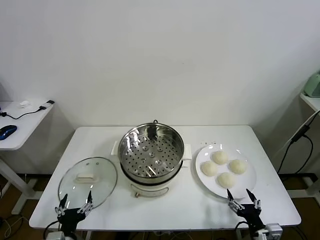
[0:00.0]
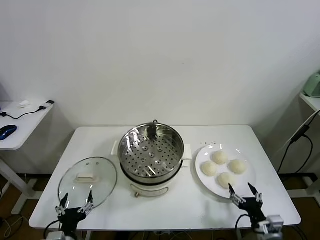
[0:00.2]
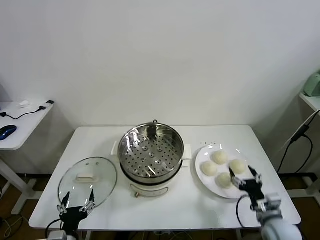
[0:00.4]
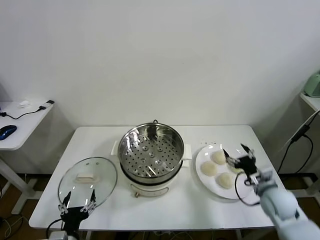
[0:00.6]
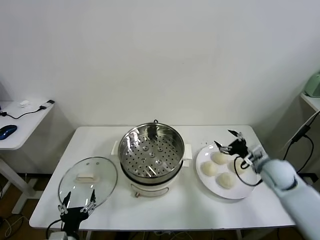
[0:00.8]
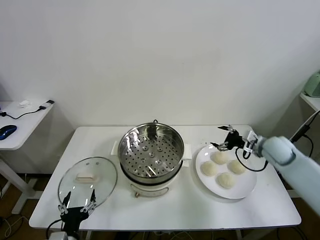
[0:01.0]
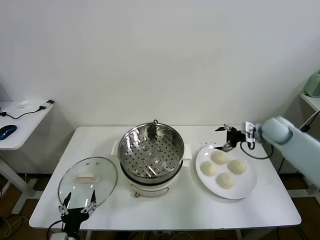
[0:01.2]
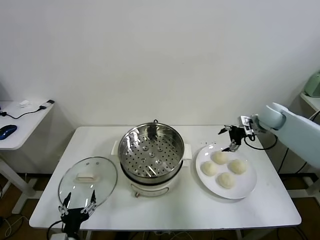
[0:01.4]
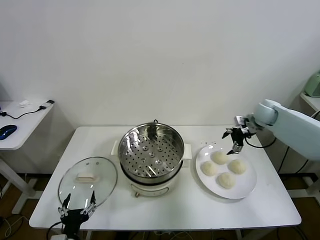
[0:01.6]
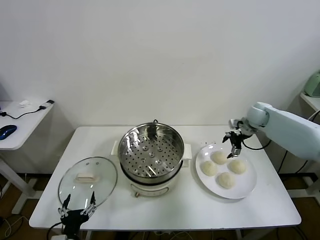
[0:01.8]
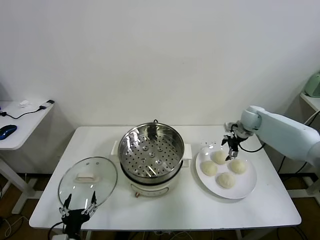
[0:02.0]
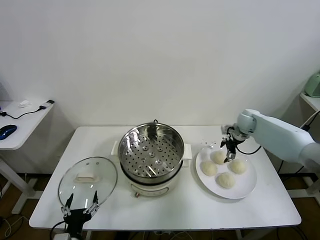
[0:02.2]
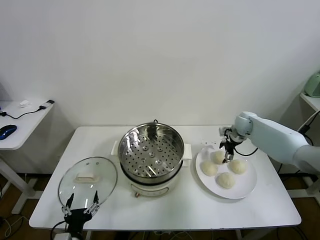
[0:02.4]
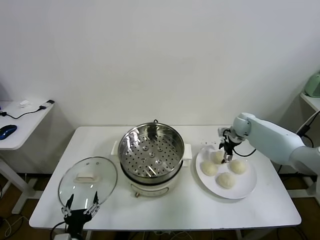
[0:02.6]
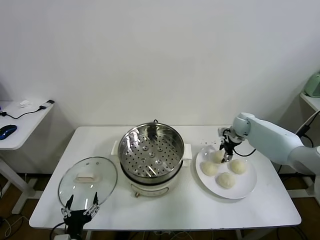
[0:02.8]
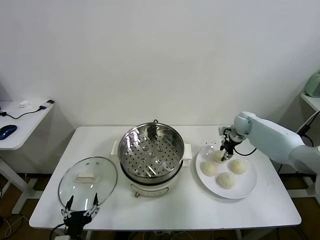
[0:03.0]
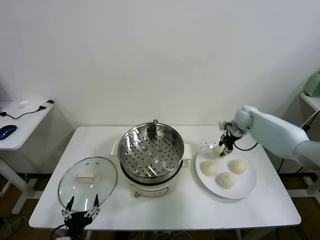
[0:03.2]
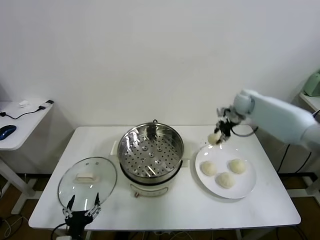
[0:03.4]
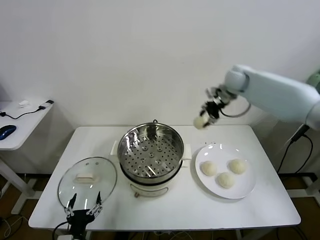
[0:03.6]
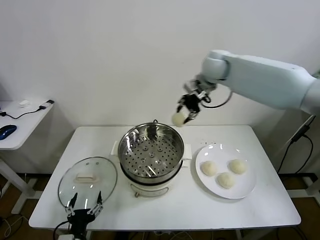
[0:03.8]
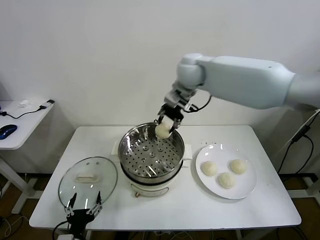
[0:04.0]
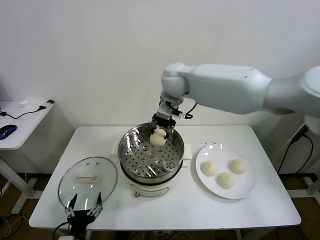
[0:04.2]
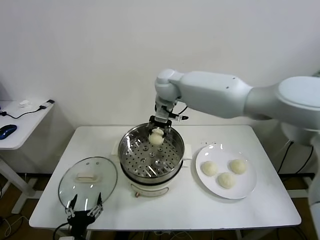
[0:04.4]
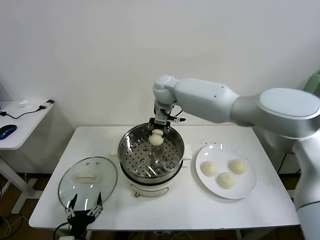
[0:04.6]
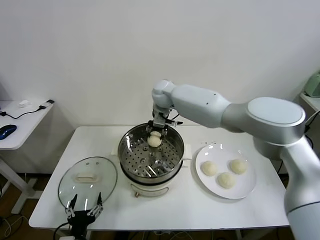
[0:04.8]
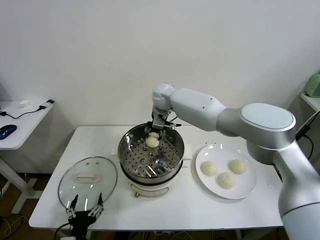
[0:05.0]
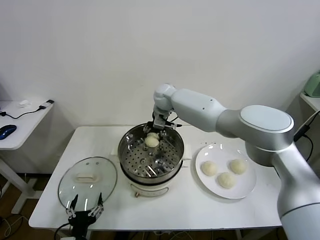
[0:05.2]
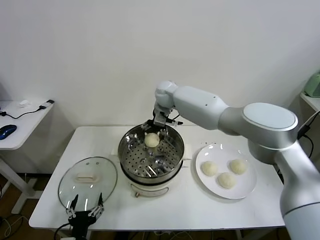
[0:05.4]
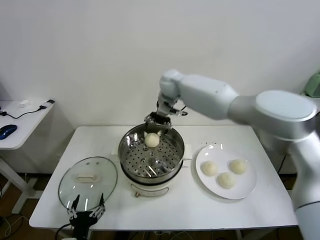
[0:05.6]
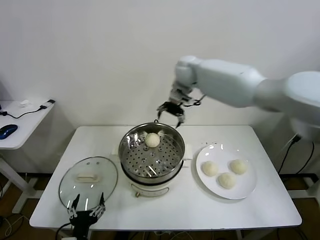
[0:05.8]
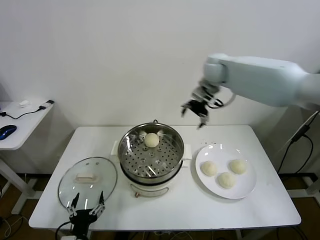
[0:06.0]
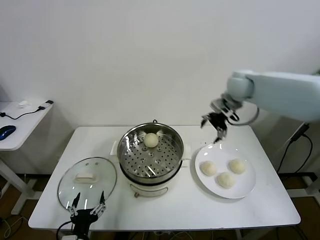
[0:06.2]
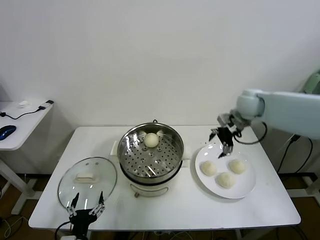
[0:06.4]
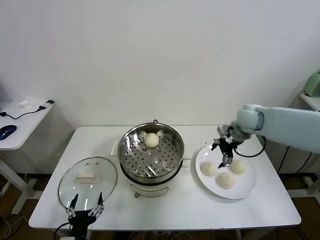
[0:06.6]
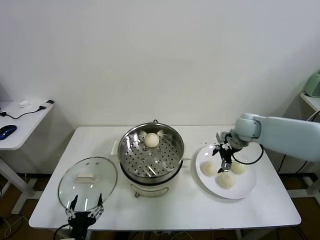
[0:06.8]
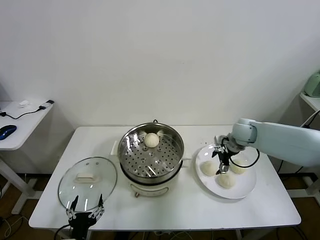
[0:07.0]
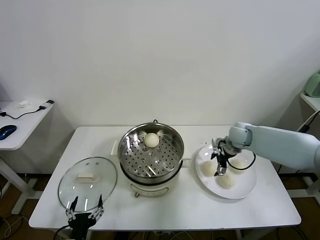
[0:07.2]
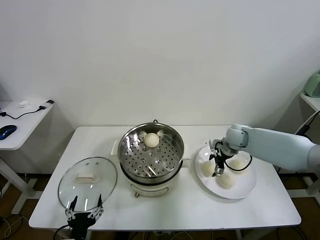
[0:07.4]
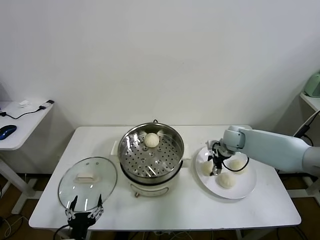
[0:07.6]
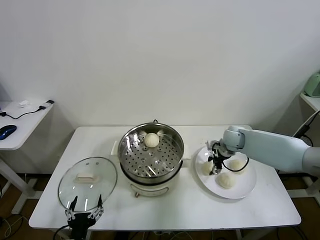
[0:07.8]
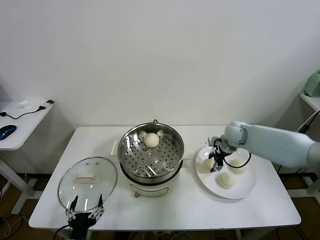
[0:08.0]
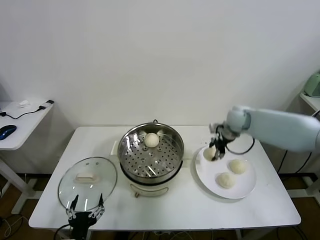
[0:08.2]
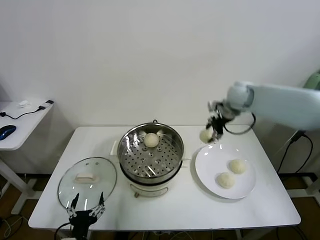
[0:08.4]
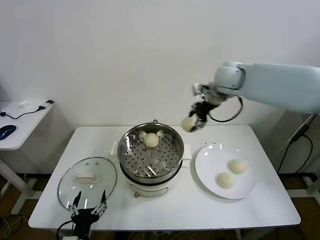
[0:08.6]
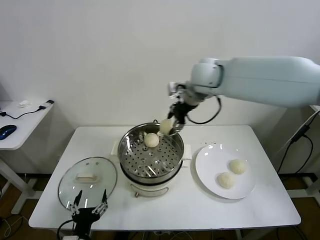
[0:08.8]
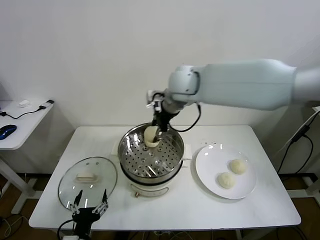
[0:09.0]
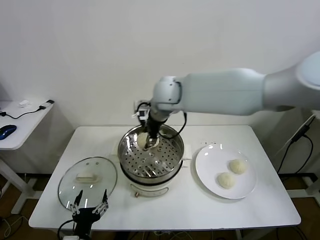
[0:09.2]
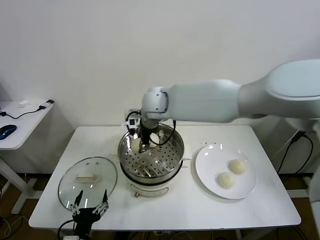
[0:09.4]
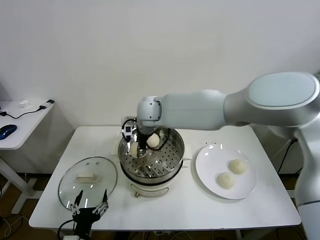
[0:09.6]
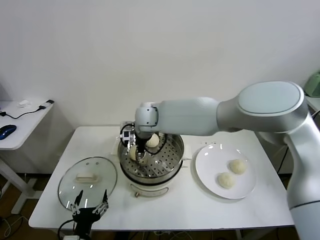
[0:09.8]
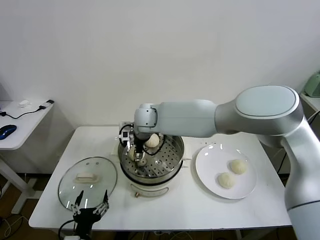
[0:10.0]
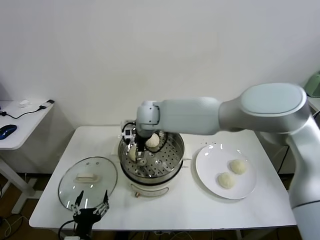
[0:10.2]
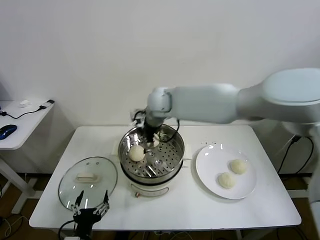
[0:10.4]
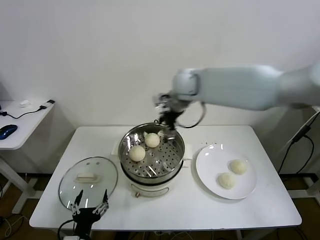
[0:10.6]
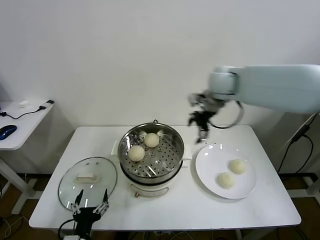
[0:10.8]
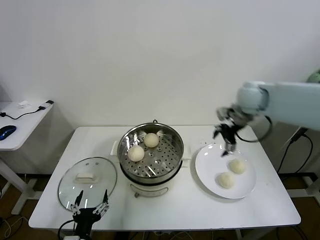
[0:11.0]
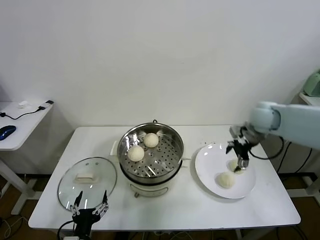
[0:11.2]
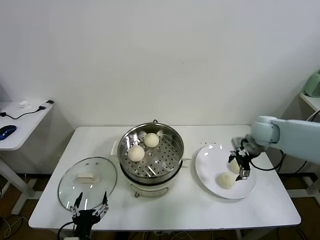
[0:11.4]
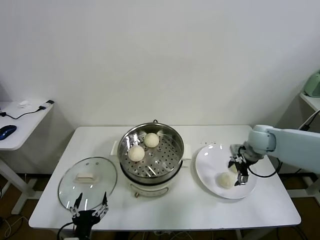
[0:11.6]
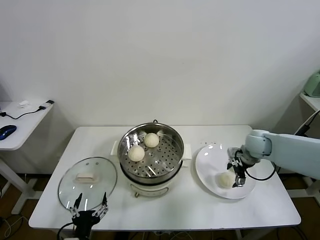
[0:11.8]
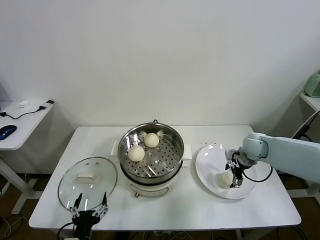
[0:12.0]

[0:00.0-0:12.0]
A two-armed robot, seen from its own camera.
Task of the whole recording: take steamed baozi put them in steamer.
Step, 0:00.0 to 0:03.0: Grasp the baozi in the plate with right gripper.
Step, 0:03.2 to 0:05.4: Place the baozi on the steamer with right gripper.
Step, 0:05.6 to 0:07.8: Grasp the baozi in the plate with right gripper.
Step, 0:08.0 to 0:10.2: Place the baozi on the steamer with right gripper.
0:01.6 to 0:03.0: The right gripper is displaced downward by about 5 cm, and closes its fingers.
0:03.0 to 0:04.4: The right gripper heads to the left and upward, covering about 40 cm.
0:04.4 to 0:06.0: The right gripper goes roughly 20 cm to the right, and opens its fingers.
0:06.0 to 0:07.6: The right gripper shifts approximately 25 cm downward, and closes.
0:07.6 to 0:09.0: The right gripper goes about 35 cm upward and to the left.
0:09.0 to 0:10.4: The right gripper opens up.
0:10.4 to 0:12.0: The right gripper shifts about 35 cm to the right and downward.

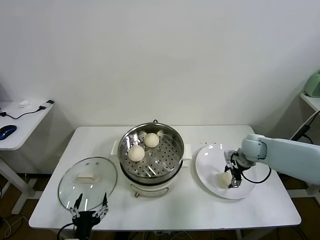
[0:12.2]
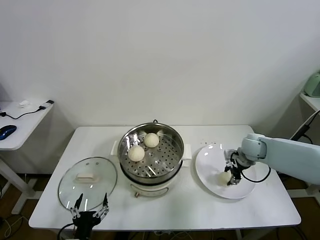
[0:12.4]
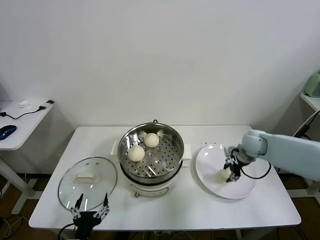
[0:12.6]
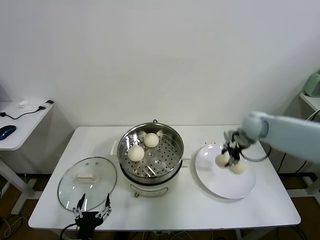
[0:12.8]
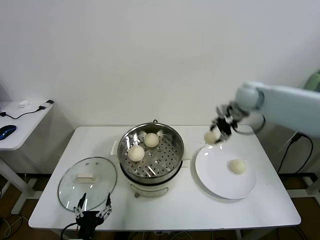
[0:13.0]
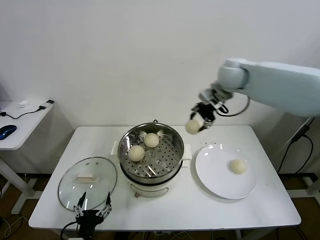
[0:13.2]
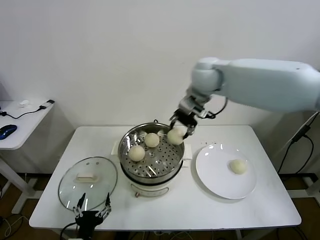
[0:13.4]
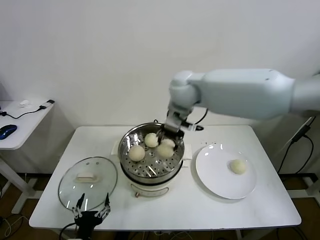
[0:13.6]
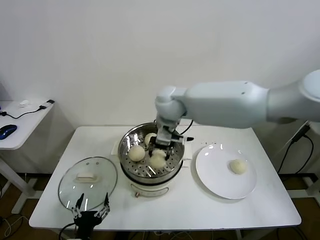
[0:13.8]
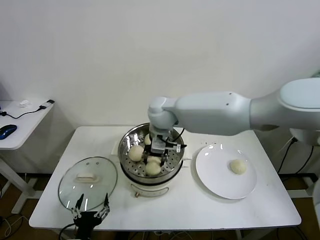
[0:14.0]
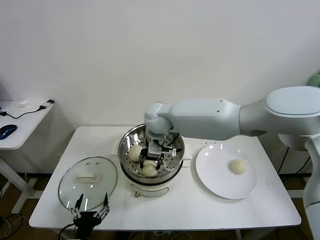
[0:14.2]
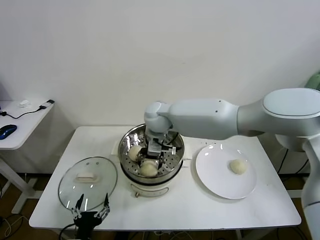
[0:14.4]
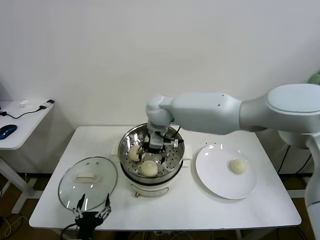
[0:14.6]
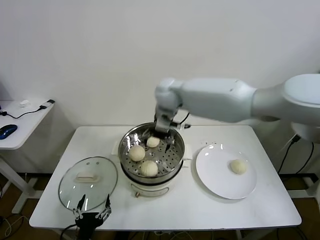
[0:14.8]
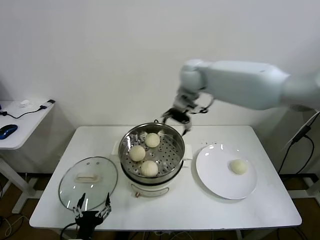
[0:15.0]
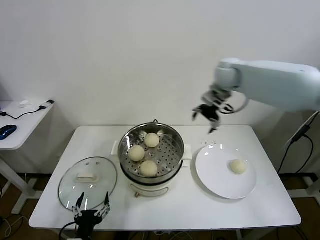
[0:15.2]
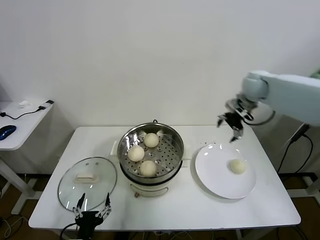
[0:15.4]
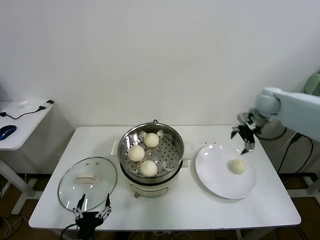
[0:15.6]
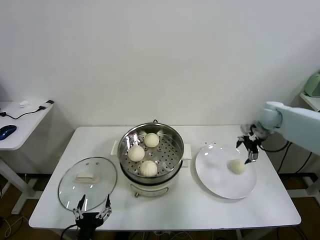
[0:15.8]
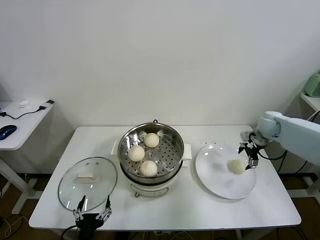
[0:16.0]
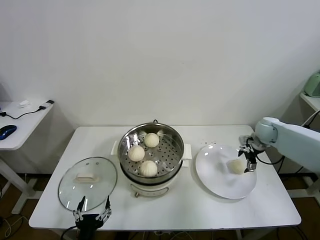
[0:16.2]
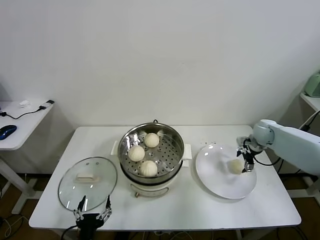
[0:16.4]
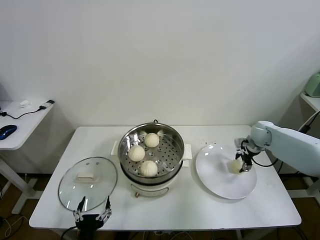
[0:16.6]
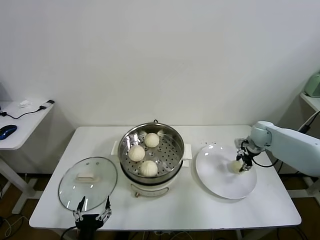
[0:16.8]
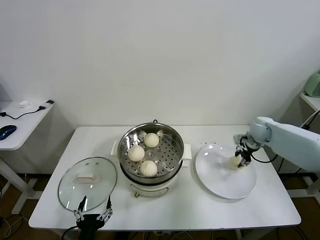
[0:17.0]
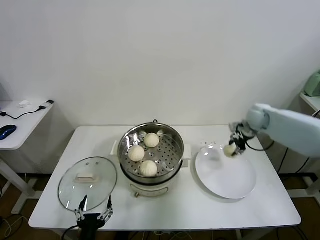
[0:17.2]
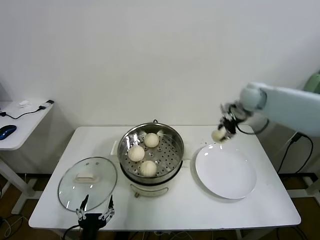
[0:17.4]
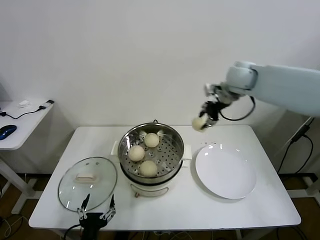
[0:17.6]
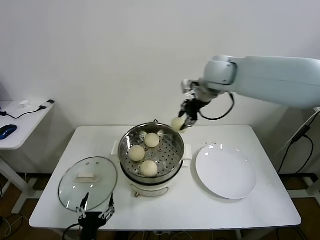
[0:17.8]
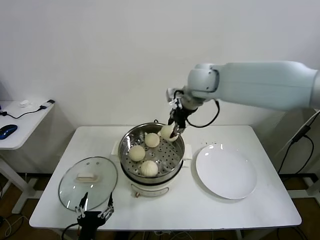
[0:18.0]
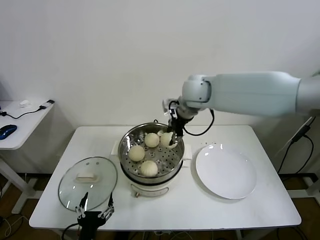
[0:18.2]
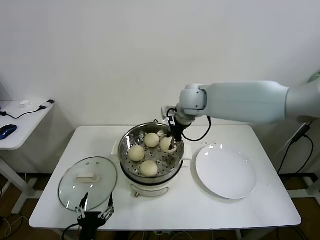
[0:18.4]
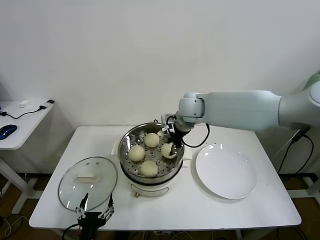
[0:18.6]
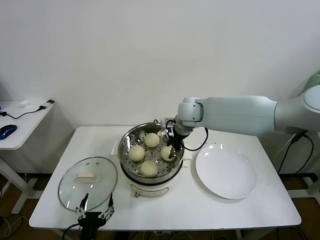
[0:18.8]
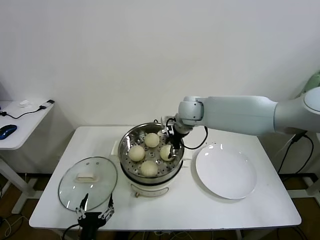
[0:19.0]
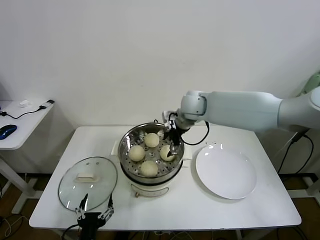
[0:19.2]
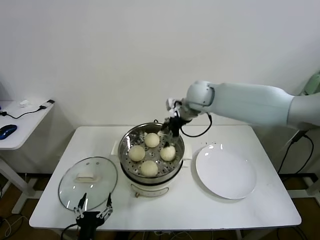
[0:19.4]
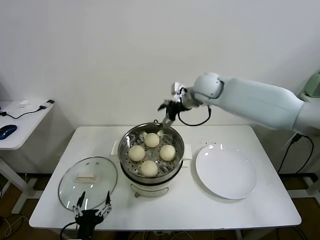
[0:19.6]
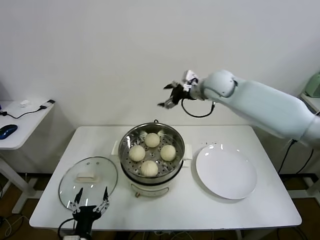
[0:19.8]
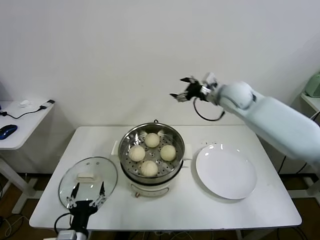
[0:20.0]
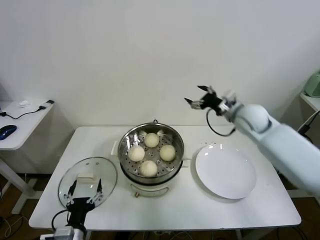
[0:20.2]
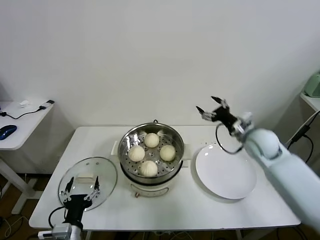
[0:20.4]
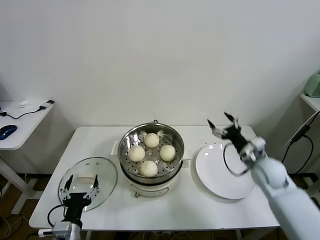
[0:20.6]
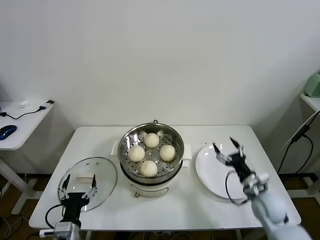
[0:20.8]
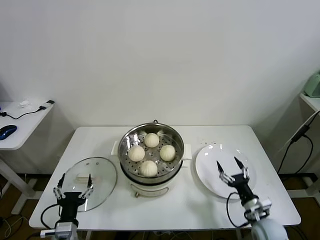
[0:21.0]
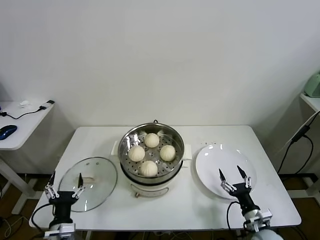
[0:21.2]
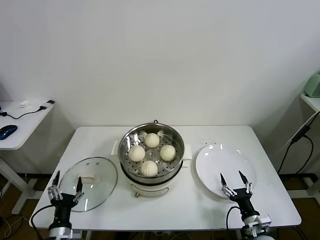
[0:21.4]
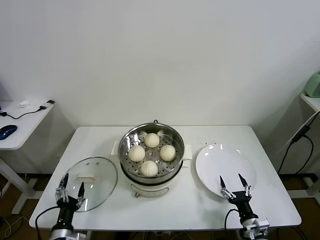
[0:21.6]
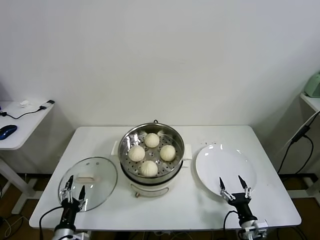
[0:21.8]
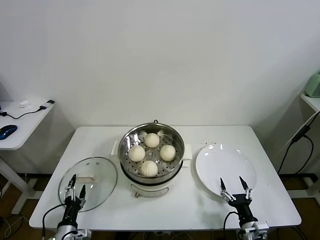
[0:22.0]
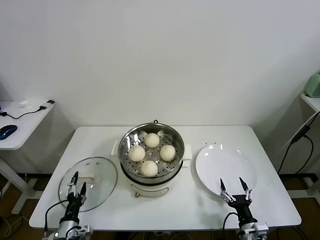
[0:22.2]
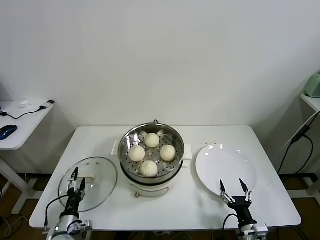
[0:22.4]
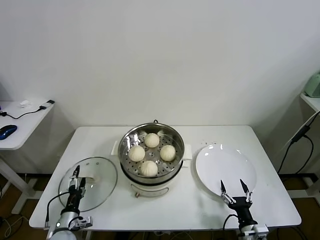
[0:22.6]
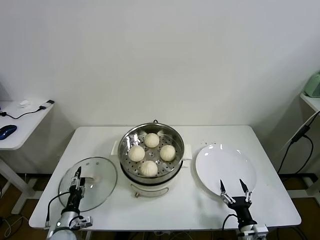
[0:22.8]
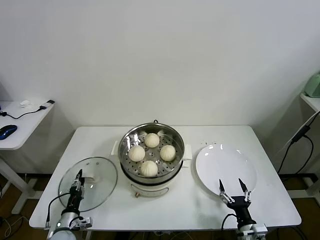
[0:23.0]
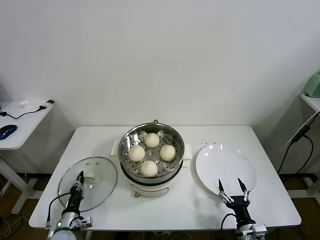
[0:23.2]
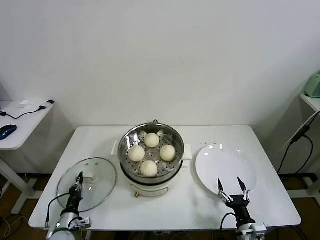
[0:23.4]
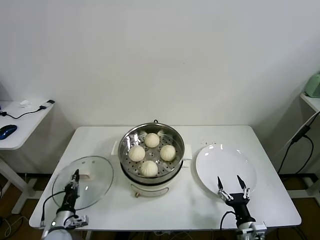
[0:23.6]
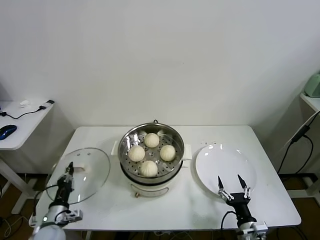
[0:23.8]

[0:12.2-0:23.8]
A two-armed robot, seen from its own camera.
Task of the whole recording: take steamed baozi put them in steamer.
Step, 0:12.6 to 0:14.6: Place the baozi on the steamer with right gripper.
Step, 0:14.8 to 0:16.8: Grasp the baozi in the plate with right gripper.
Step, 0:17.0 to 0:19.0: Place the baozi on the steamer with right gripper.
Step, 0:19.2 to 0:23.2: Grasp the pot lid with left gripper.
0:12.2 to 0:13.6: The right gripper goes approximately 35 cm to the left and upward, and closes its fingers.
0:13.6 to 0:15.0: The right gripper goes about 10 cm to the right and forward, and opens.
0:15.0 to 0:16.6: The right gripper travels to the right and downward by approximately 35 cm, and closes up.
0:16.6 to 0:18.0: The right gripper is displaced to the left and upward by about 35 cm, and closes its fingers.
0:18.0 to 0:19.4: The right gripper goes approximately 5 cm downward, and opens up.
0:19.4 to 0:21.0: The right gripper travels downward, backward and to the right by approximately 50 cm; the left gripper goes roughly 5 cm to the left and forward.
0:21.0 to 0:22.4: The left gripper travels downward and to the left by approximately 10 cm, while the right gripper goes roughly 5 cm backward.
0:22.4 to 0:23.8: The left gripper changes place by roughly 5 cm, and closes its fingers.
